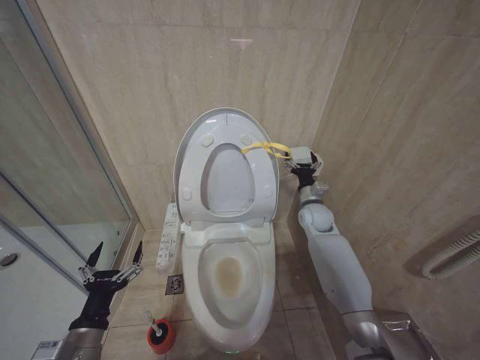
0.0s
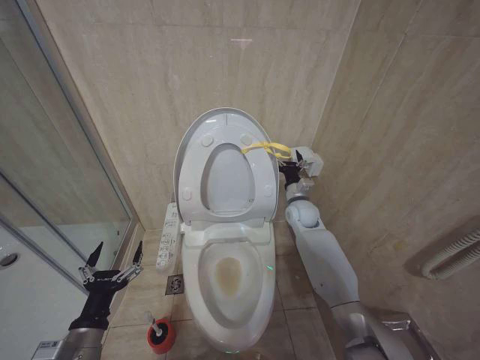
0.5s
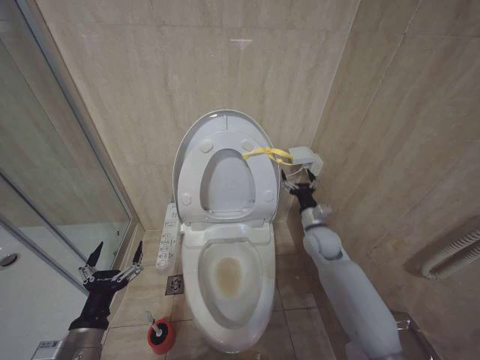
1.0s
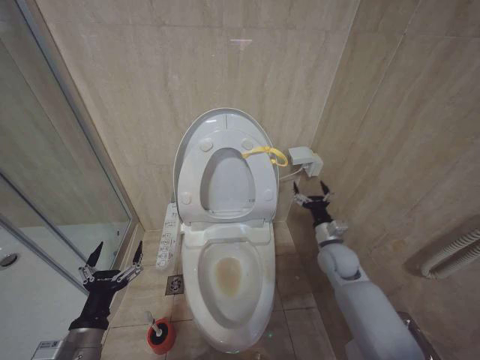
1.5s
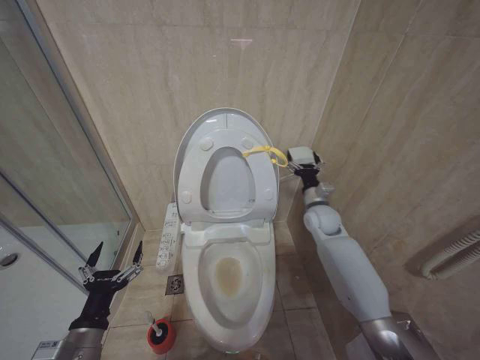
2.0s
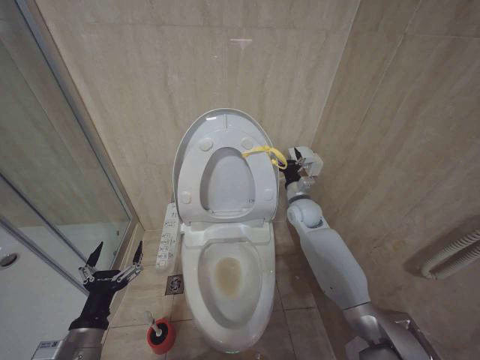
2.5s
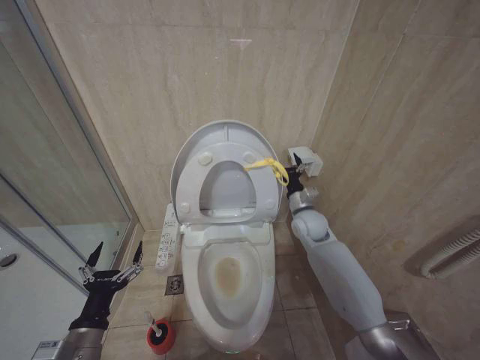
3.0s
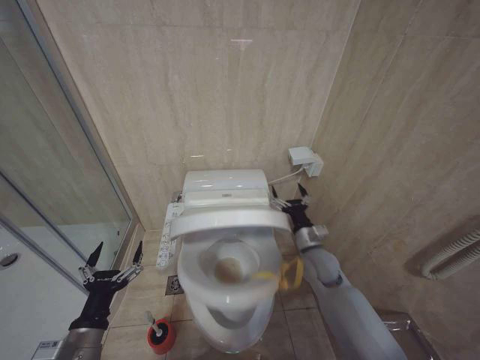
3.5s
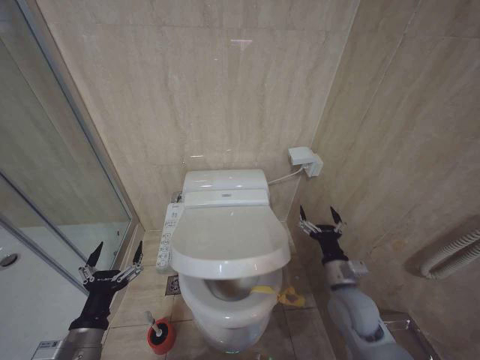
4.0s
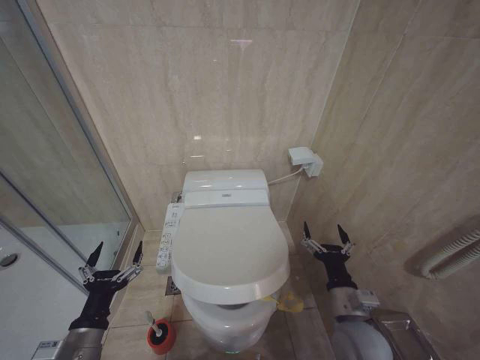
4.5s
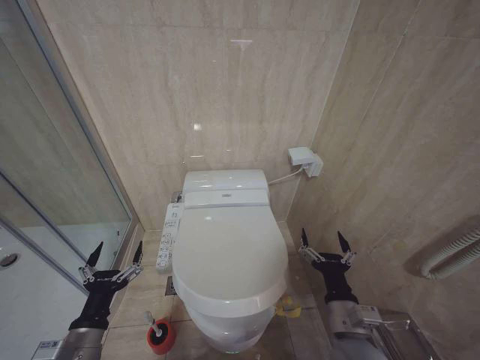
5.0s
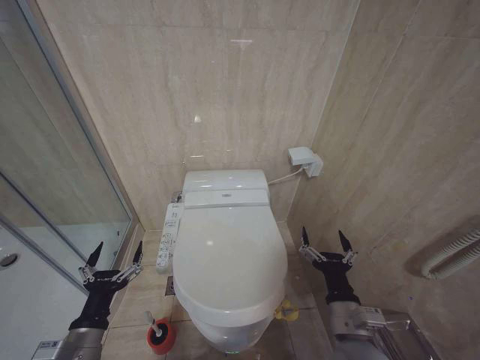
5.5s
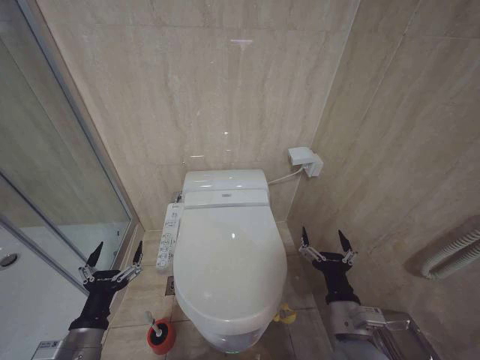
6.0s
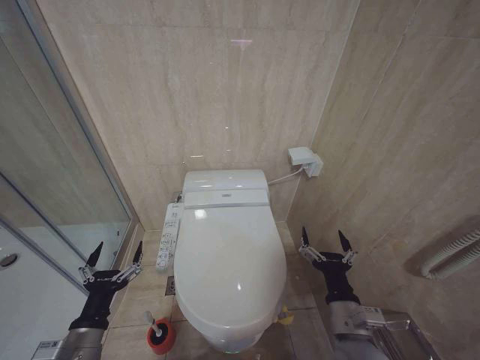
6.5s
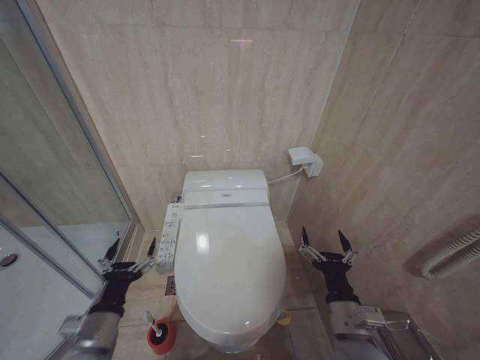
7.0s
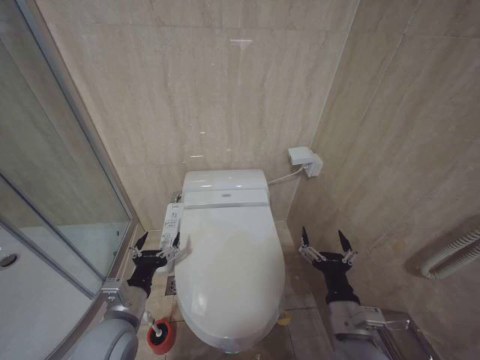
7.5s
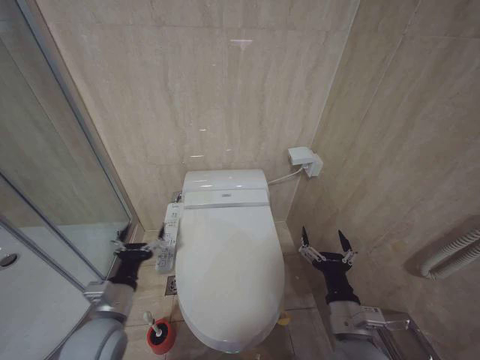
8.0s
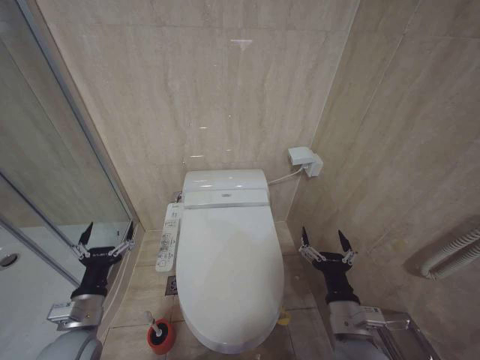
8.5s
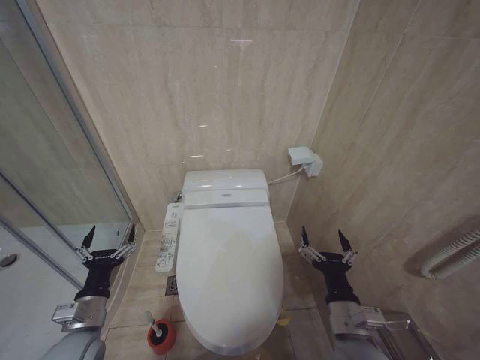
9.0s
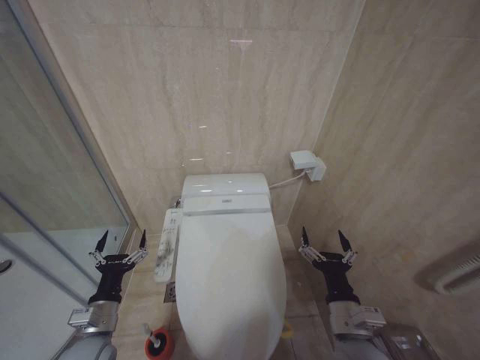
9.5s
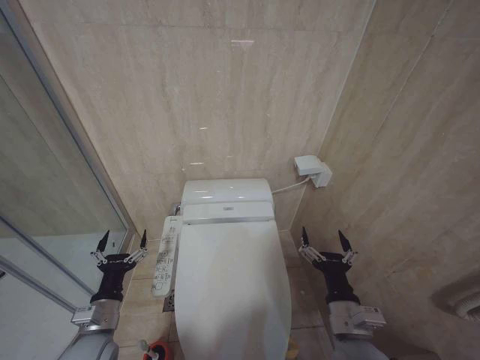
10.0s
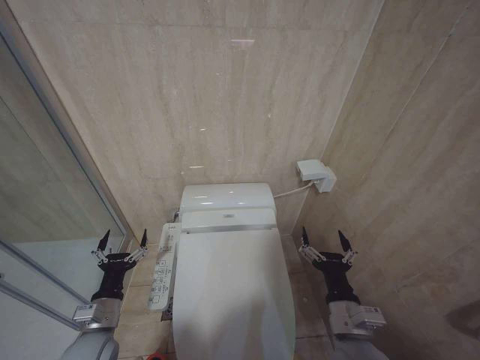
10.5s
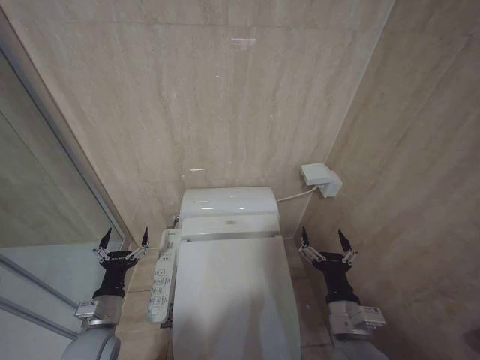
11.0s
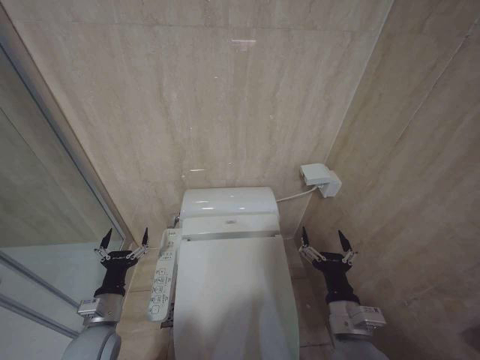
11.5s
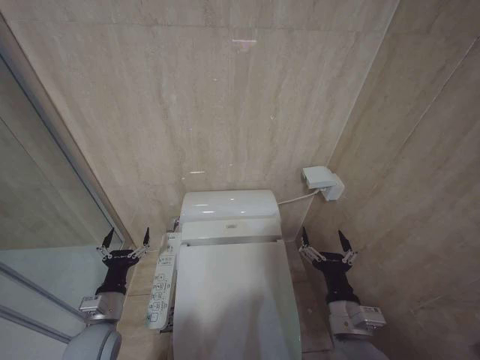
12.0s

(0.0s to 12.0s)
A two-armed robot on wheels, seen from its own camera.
Task of the whole recording: Open the toilet lid, clean the toilet bowl with a toilet brush, close the toilet lid, and flush.
0.0s - 2.0s: The right gripper reaches about 10 cm backward, then returns.
2.0s - 4.0s: The right gripper travels backward by approximately 20 cm.
4.0s - 6.0s: The right gripper goes about 15 cm backward and to the left.
6.0s - 8.0s: The left gripper is displaced forward and to the right by approximately 10 cm.
8.0s - 10.0s: The left gripper goes approximately 10 cm downward and to the left.
10.0s - 12.0s: The grippers move only a little.

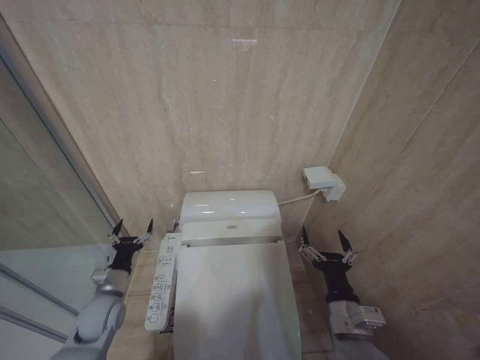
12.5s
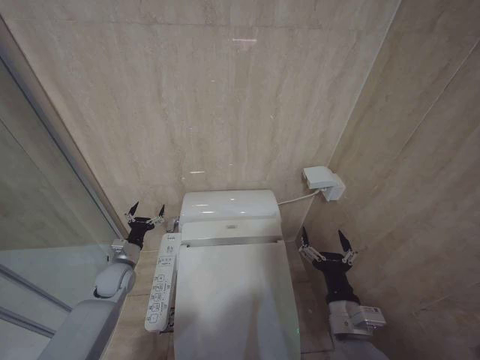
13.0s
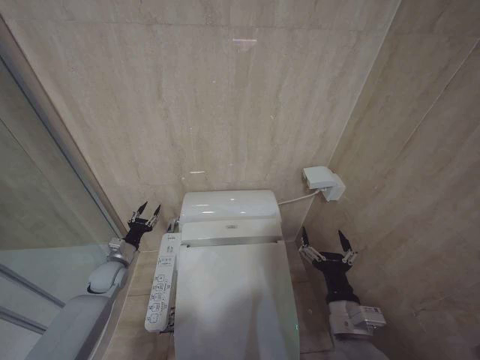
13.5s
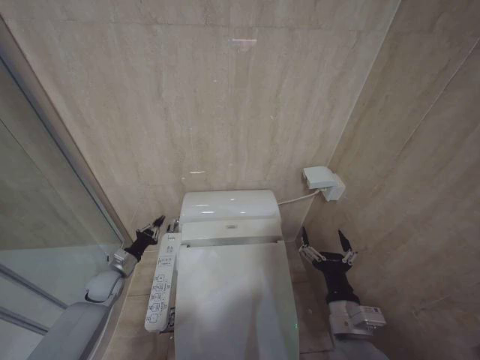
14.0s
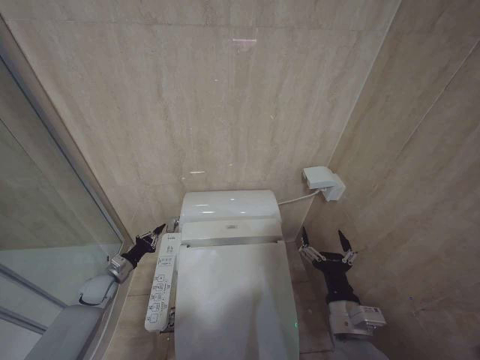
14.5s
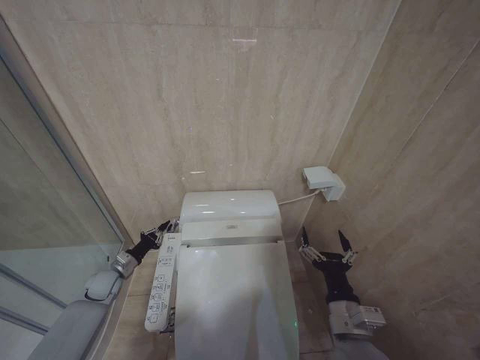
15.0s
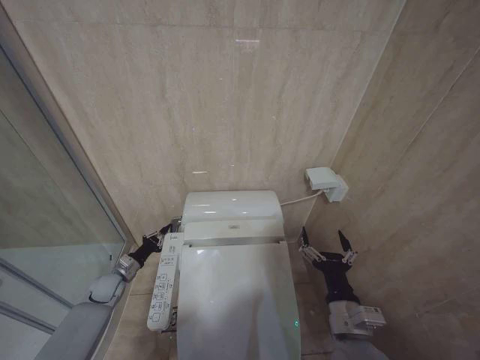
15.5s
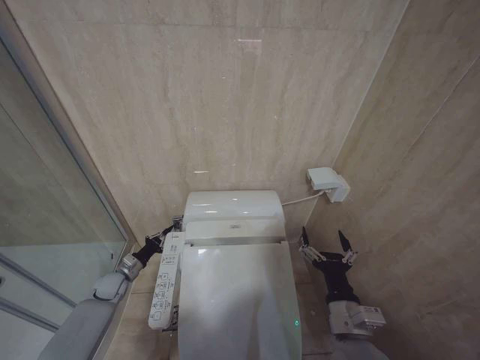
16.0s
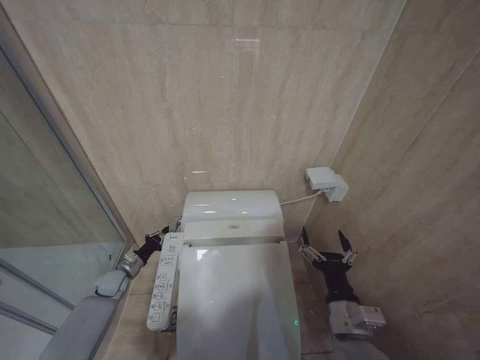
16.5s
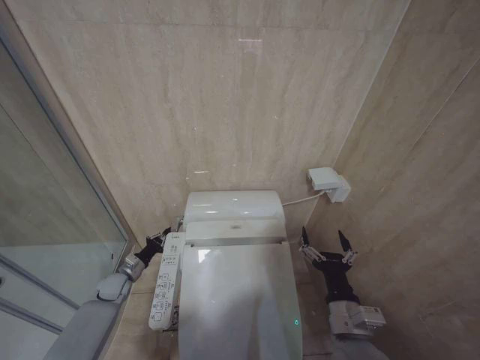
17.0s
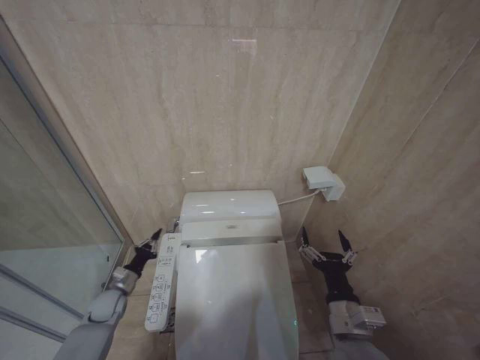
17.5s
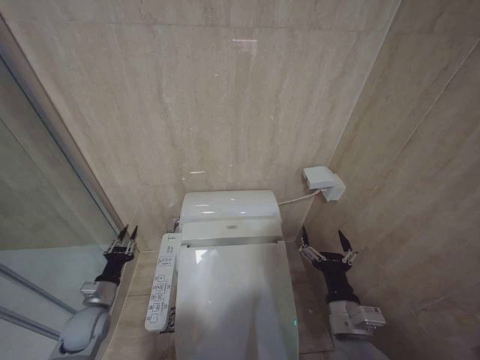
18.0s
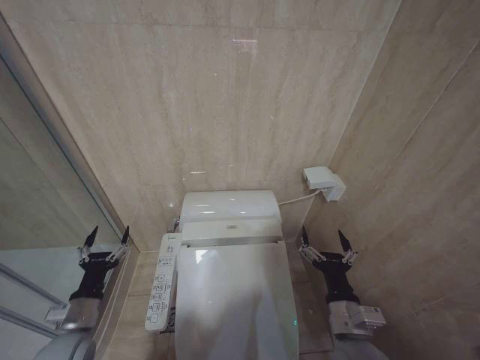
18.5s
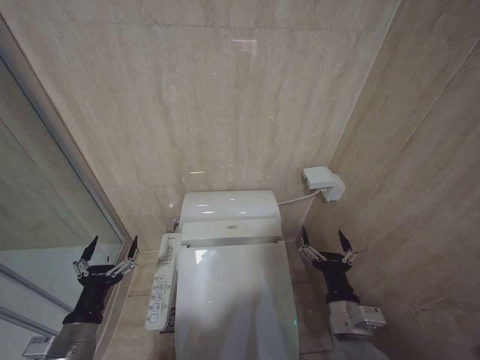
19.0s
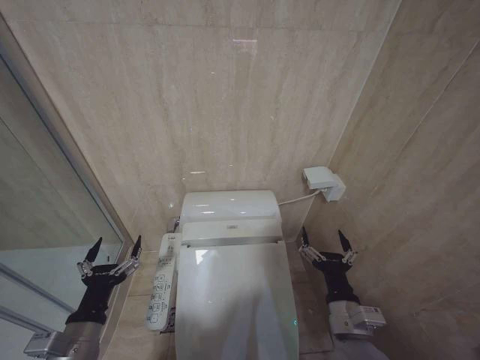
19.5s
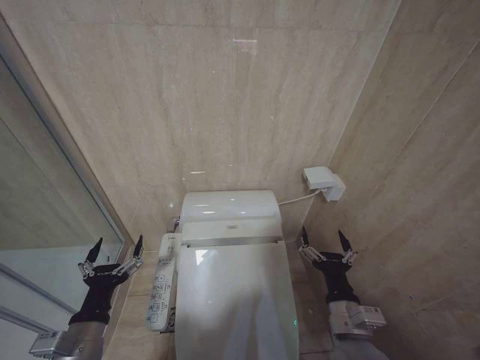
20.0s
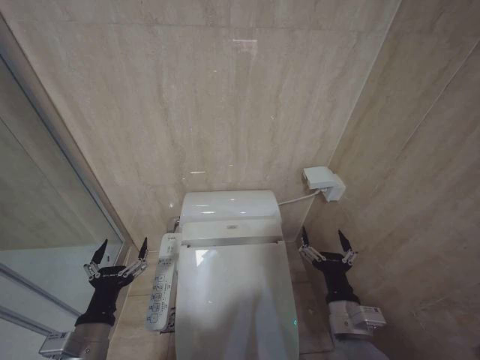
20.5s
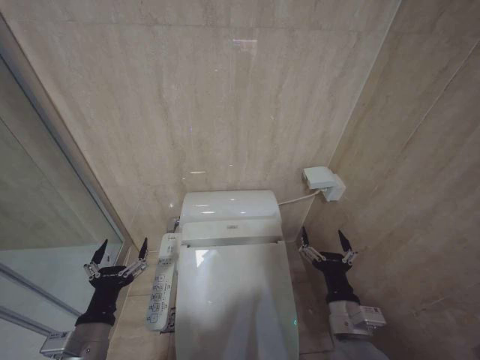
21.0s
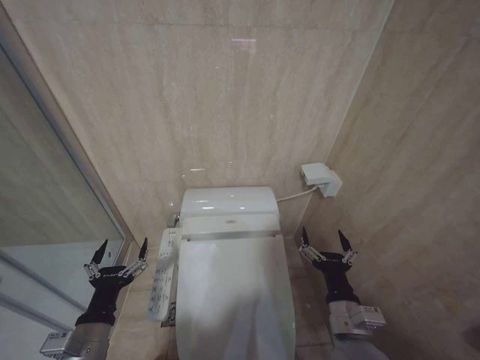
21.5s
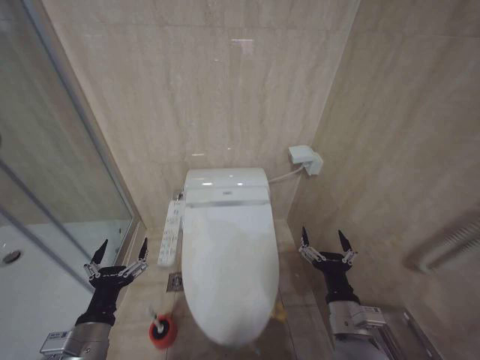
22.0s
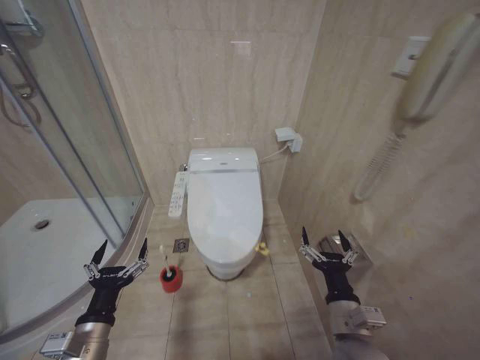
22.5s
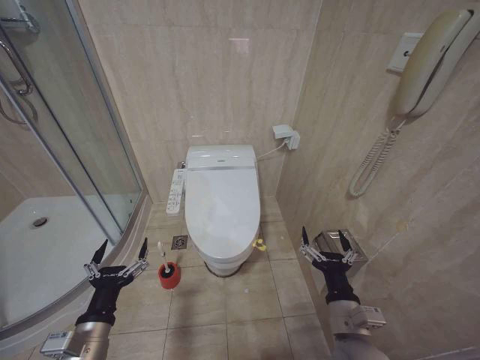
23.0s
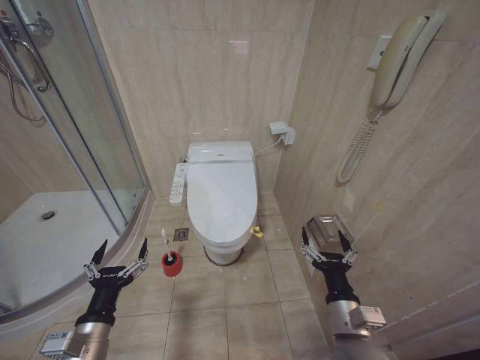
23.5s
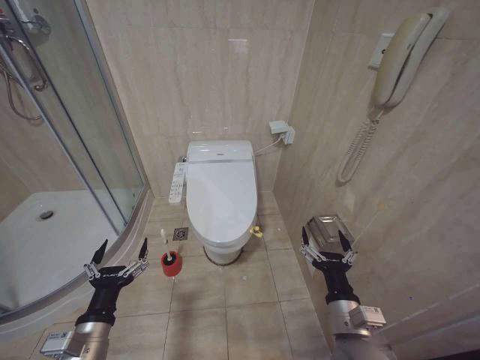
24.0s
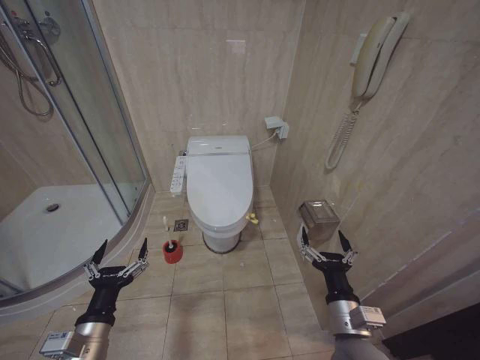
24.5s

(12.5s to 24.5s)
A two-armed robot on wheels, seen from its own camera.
Task of the whole recording: Open the toilet lid, clean the toilet bowl with a toilet brush, close the toilet lid, and flush.
12.5s - 14.5s: The left gripper moves forward, to the left and downward, roughly 15 cm, and closes.
14.5s - 16.5s: The grippers make only small movements.
16.5s - 18.5s: The left gripper shifts some 20 cm backward and upward, and opens up.
18.5s - 20.5s: The left gripper goes some 15 cm backward, to the right and upward, and opens.
22.5s - 24.5s: Both grippers stay put.

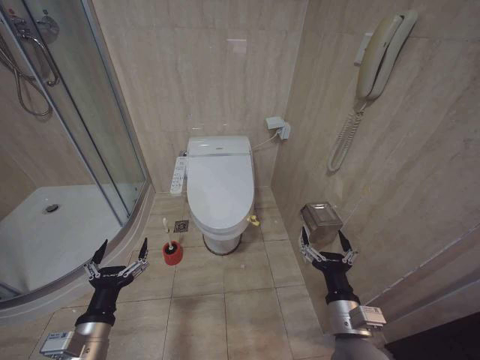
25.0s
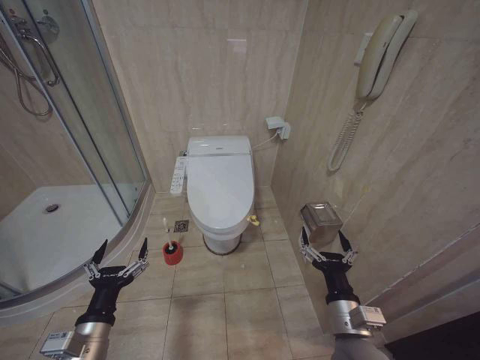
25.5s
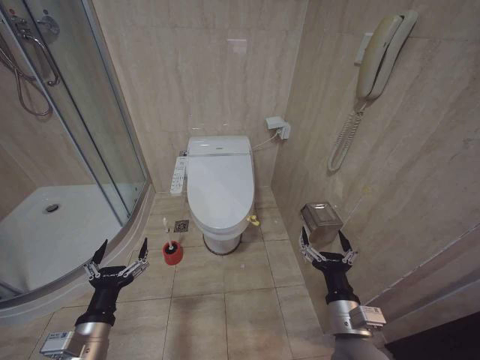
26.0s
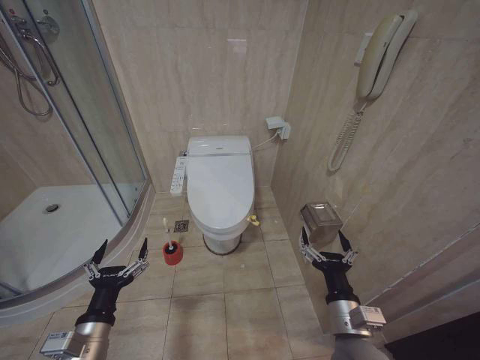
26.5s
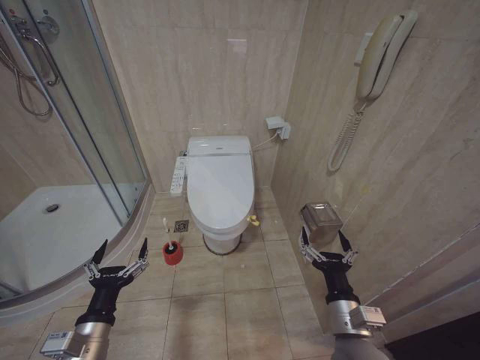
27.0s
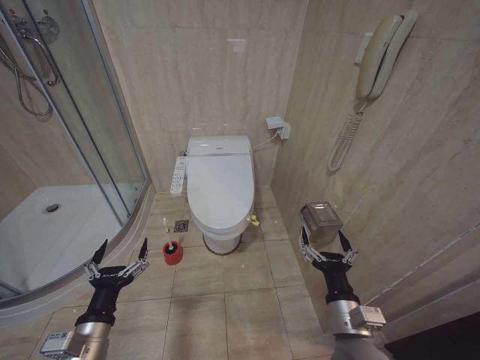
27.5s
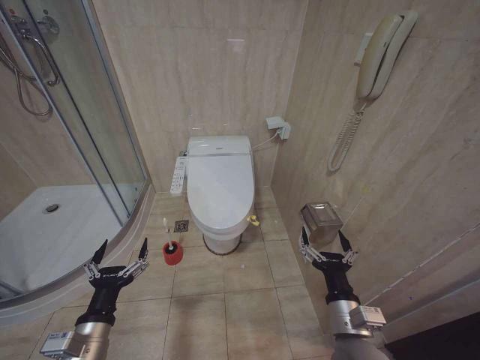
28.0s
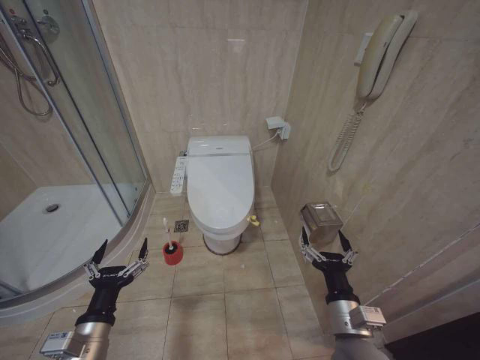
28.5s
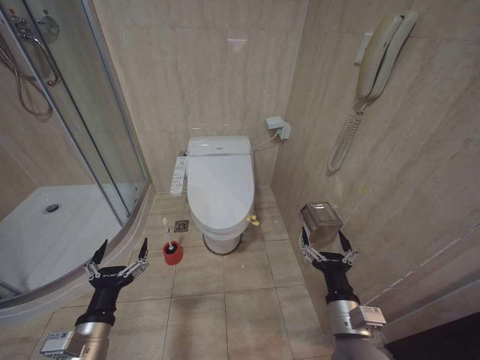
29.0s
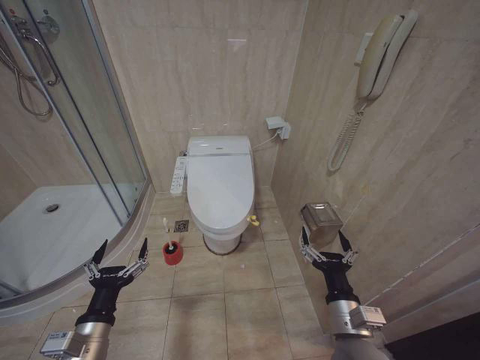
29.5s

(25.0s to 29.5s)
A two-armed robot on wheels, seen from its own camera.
Task of the whole recording: Open the toilet lid, clean the toilet bowl with a toilet brush, close the toilet lid, and flush.
25.0s - 29.5s: The two grippers keep their place.
